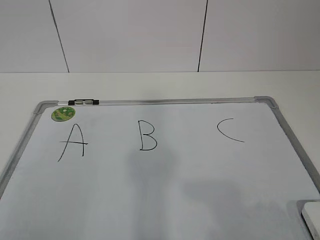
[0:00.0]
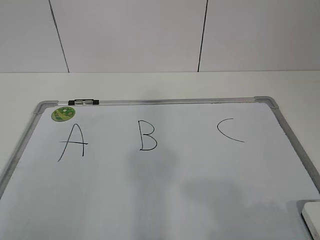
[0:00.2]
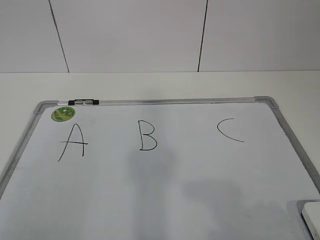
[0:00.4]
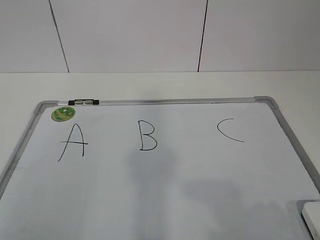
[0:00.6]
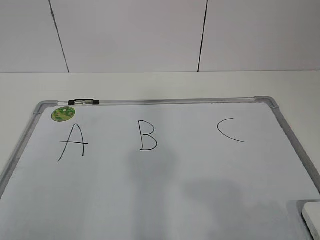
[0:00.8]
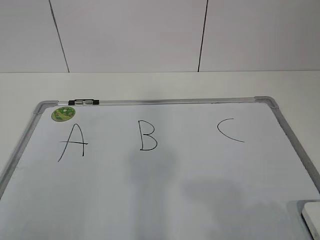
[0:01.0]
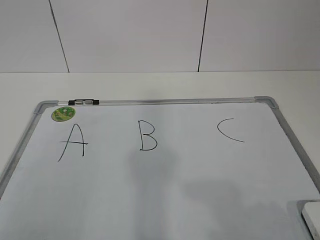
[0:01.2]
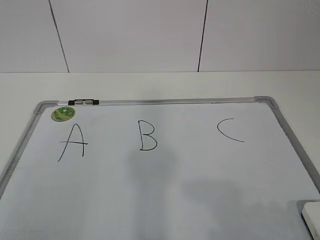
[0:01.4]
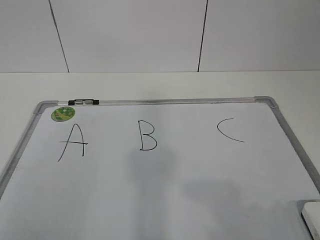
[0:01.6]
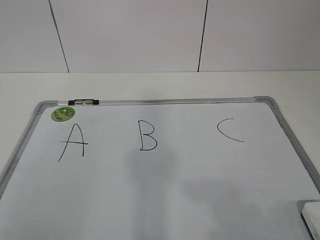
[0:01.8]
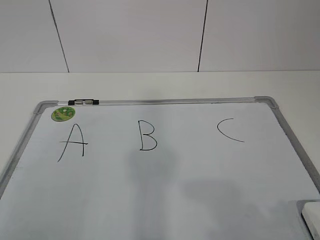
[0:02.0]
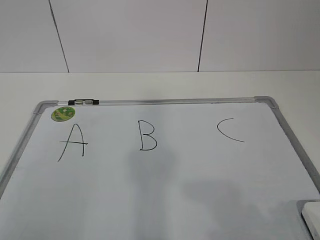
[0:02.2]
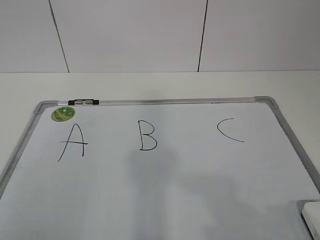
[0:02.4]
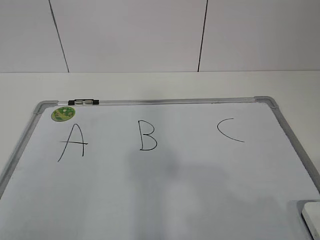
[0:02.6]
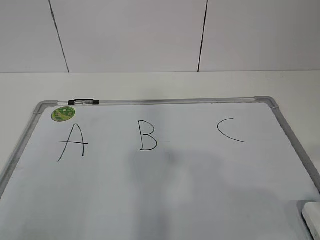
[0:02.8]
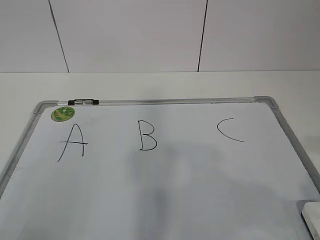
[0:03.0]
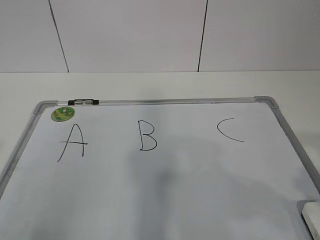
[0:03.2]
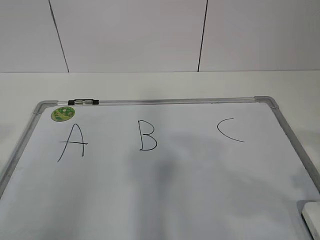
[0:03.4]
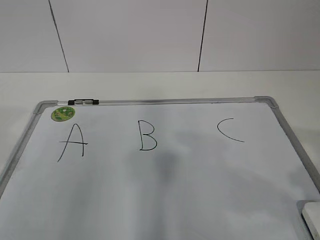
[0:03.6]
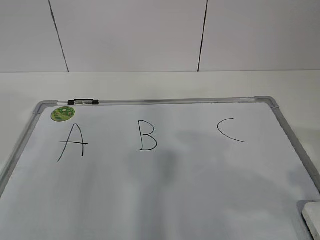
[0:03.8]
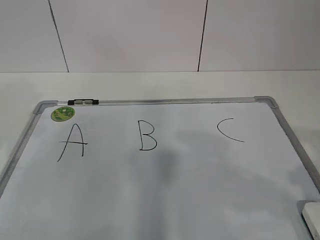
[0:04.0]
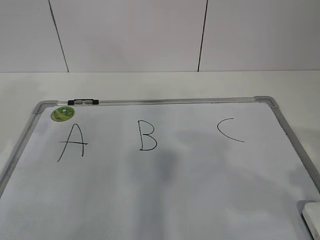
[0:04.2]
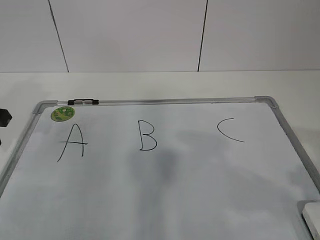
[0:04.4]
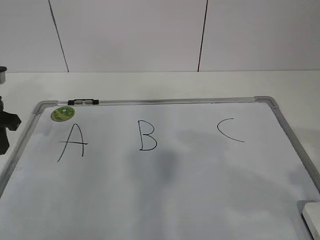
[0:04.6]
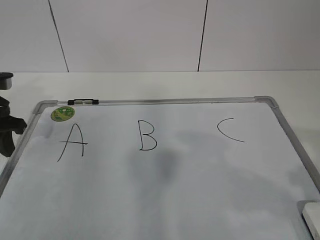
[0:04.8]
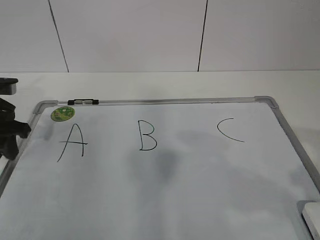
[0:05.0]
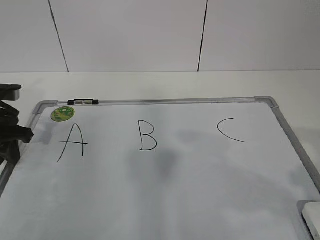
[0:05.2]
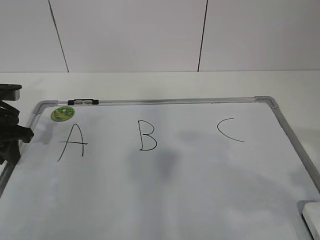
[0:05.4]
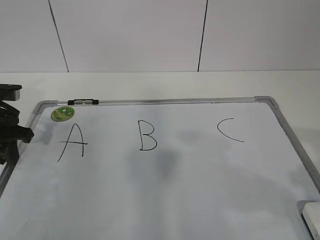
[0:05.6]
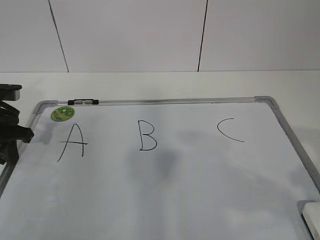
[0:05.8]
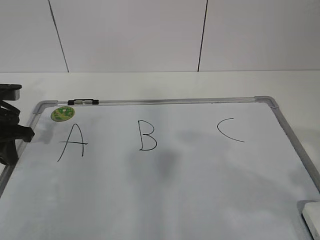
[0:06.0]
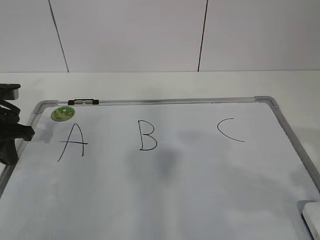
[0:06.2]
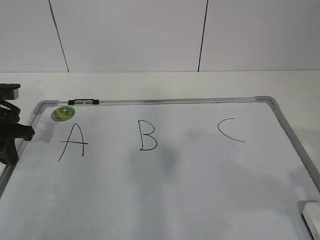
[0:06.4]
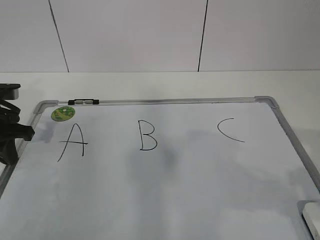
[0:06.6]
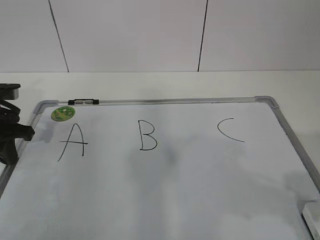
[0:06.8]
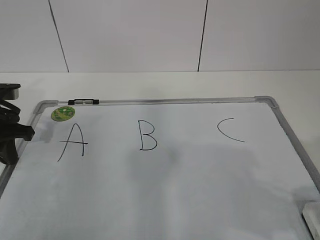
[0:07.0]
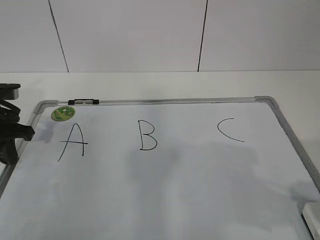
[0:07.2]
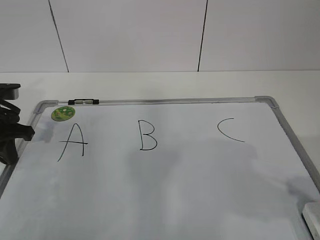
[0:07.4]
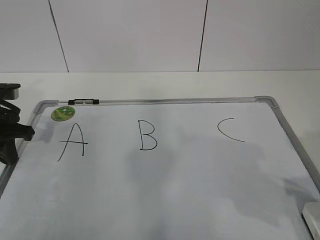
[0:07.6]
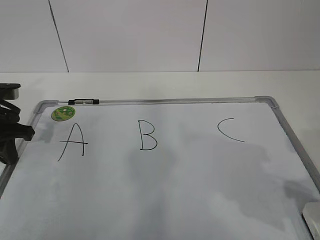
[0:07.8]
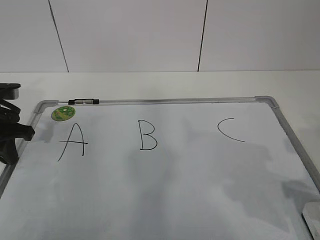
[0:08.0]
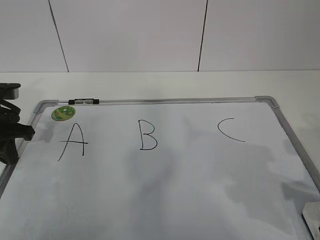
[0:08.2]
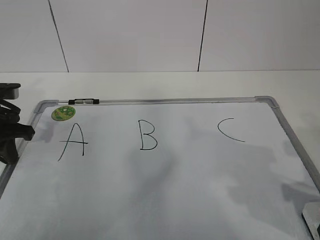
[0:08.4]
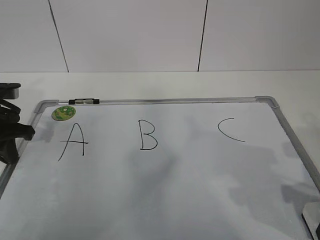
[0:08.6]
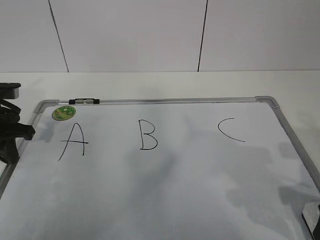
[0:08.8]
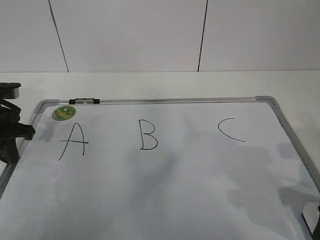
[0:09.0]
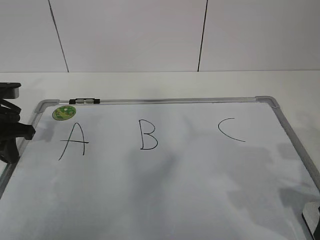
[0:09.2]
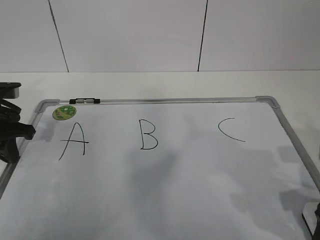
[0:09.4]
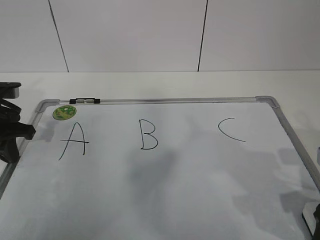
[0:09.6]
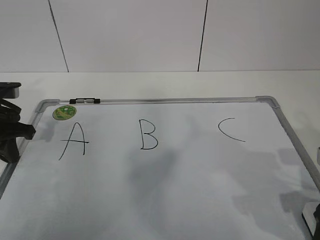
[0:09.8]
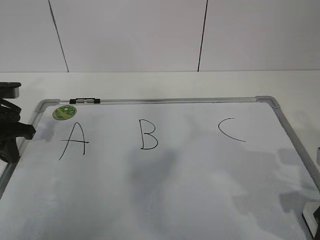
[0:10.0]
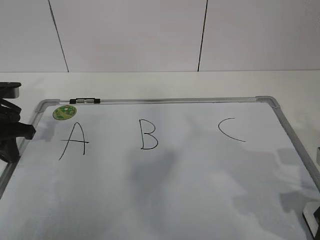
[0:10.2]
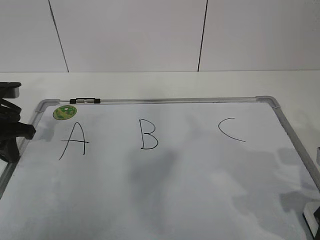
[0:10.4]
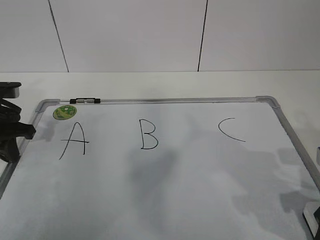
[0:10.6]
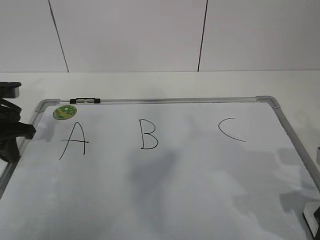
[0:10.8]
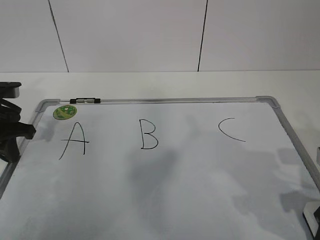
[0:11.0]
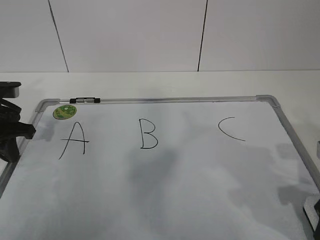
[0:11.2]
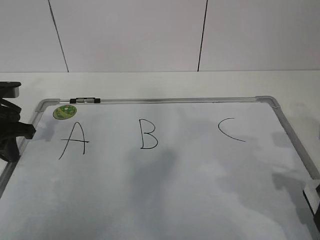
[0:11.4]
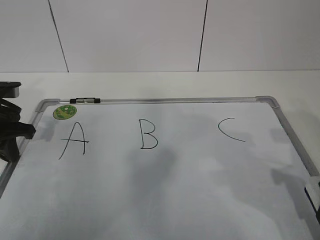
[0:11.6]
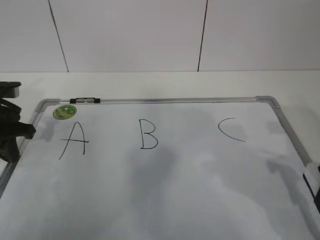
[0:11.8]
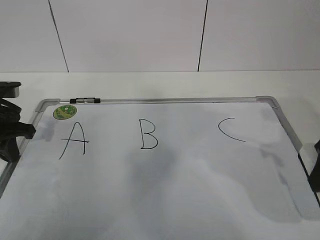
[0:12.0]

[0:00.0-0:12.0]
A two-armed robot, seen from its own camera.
Task of the whole recording: pick up the eraser on the blackboard and erase the letter "B".
Step, 0:00.0 to 0:04.8: Hold the drawing board steady with your left hand.
0:03.0 to 0:04.4: The left gripper shifts about 25 cm forward.
0:04.4 to 0:06.0: The left gripper is displaced downward by roughly 5 cm, and closes.
0:07.6 to 0:09.0: The right gripper shifts by about 5 cm.
0:09.0 to 0:10.4: Both grippers stay about where they are.
0:10.4 to 0:12.0: The right gripper heads upward, covering some 10 cm.

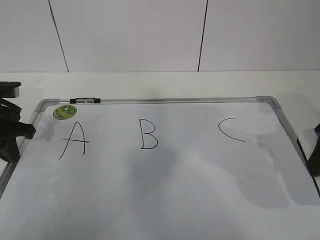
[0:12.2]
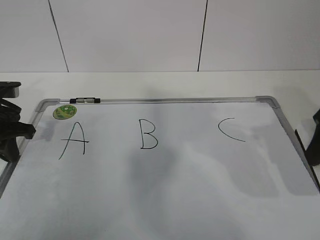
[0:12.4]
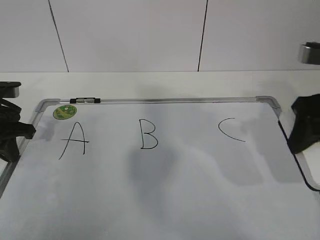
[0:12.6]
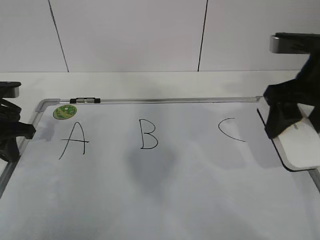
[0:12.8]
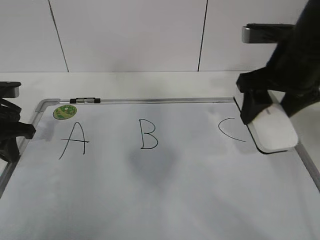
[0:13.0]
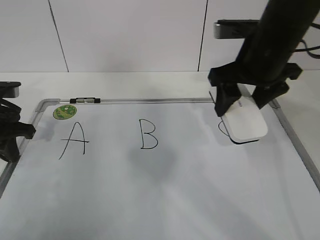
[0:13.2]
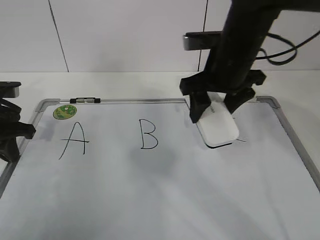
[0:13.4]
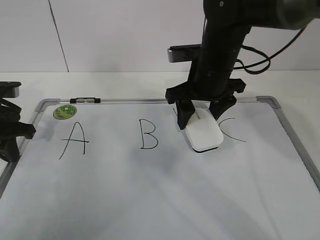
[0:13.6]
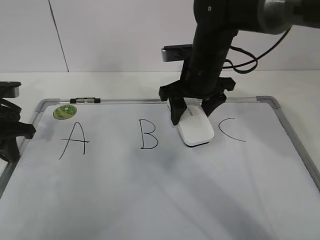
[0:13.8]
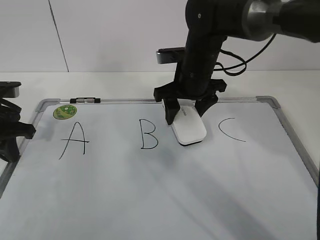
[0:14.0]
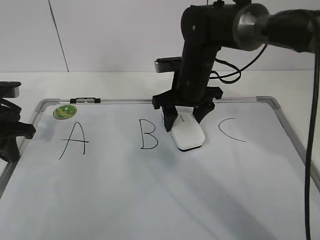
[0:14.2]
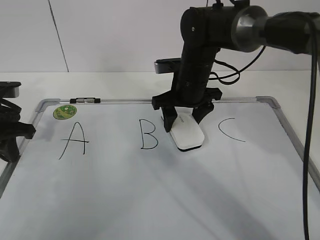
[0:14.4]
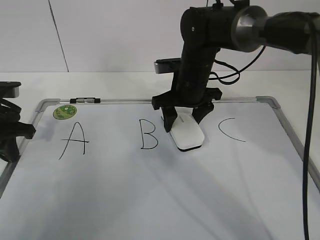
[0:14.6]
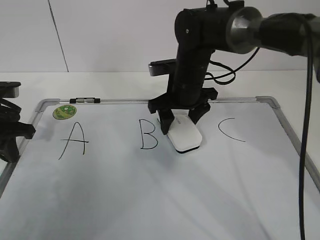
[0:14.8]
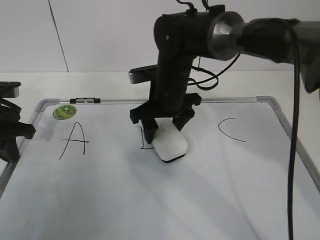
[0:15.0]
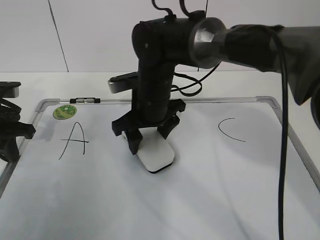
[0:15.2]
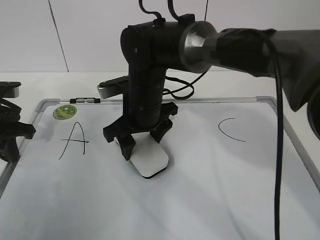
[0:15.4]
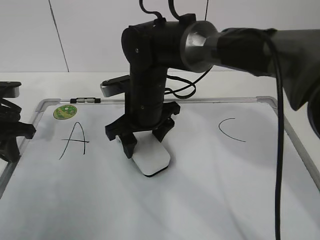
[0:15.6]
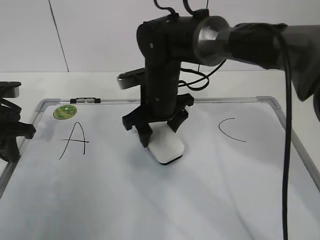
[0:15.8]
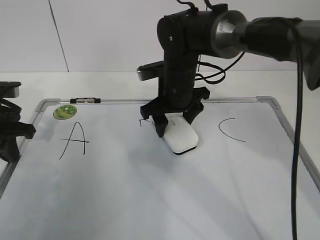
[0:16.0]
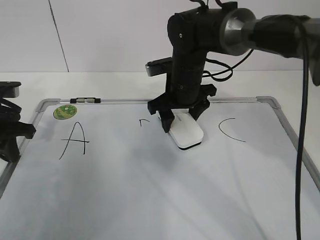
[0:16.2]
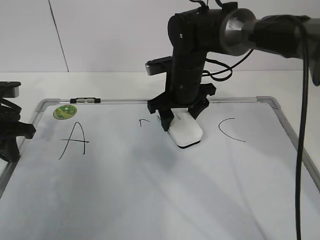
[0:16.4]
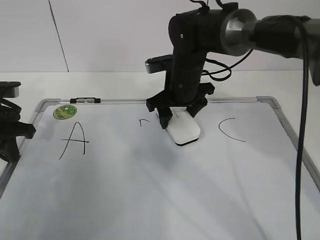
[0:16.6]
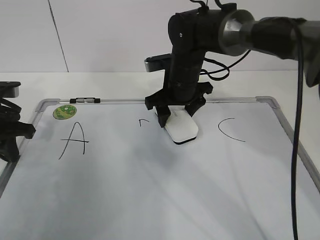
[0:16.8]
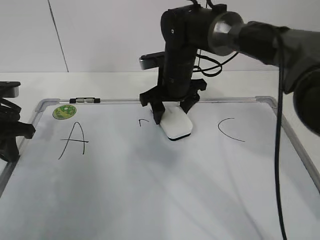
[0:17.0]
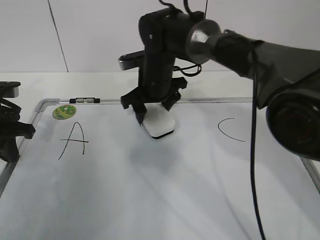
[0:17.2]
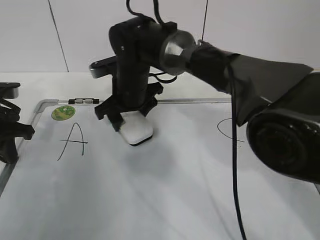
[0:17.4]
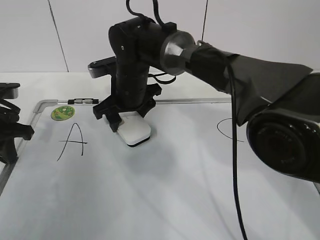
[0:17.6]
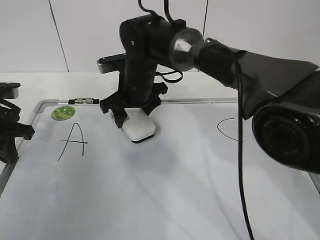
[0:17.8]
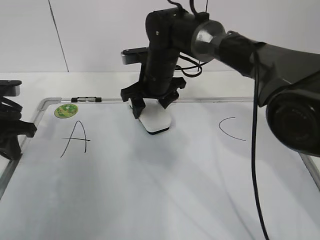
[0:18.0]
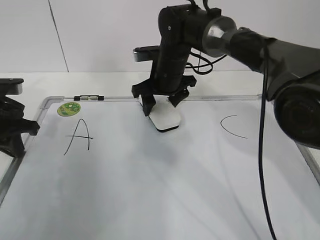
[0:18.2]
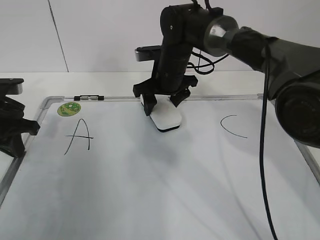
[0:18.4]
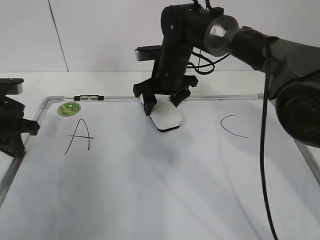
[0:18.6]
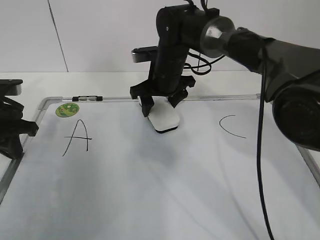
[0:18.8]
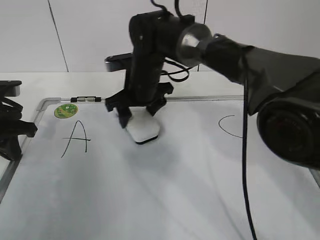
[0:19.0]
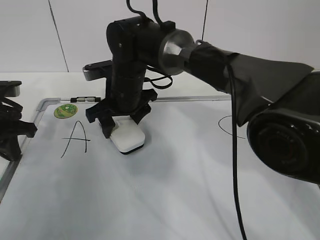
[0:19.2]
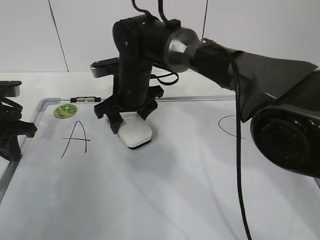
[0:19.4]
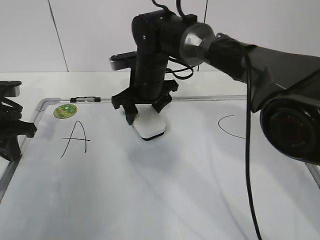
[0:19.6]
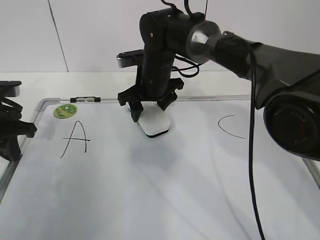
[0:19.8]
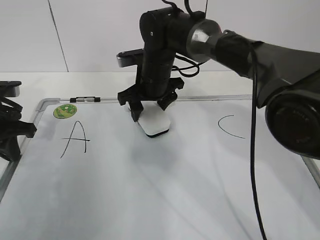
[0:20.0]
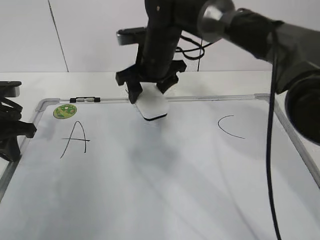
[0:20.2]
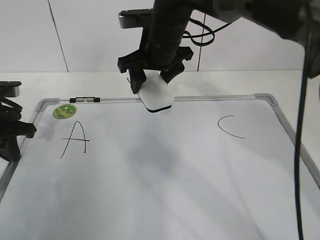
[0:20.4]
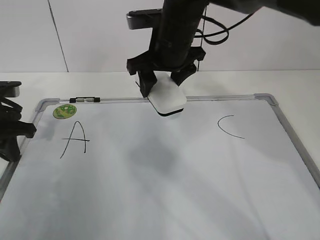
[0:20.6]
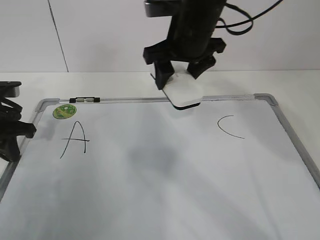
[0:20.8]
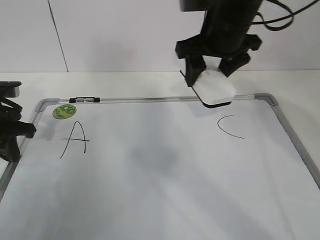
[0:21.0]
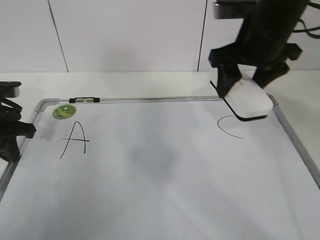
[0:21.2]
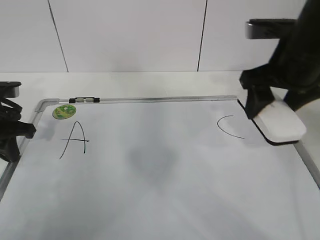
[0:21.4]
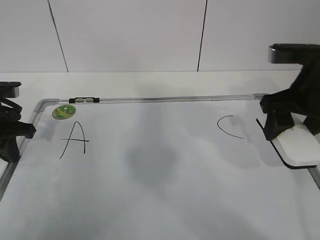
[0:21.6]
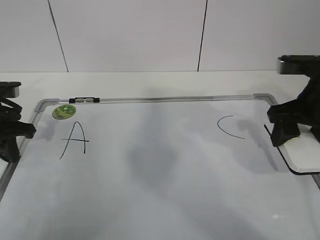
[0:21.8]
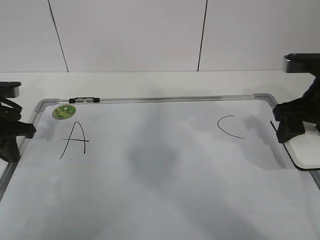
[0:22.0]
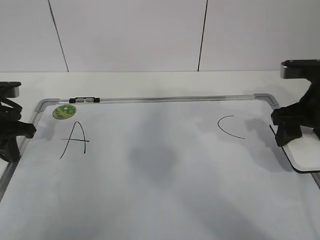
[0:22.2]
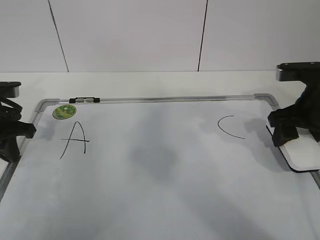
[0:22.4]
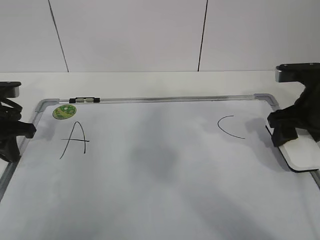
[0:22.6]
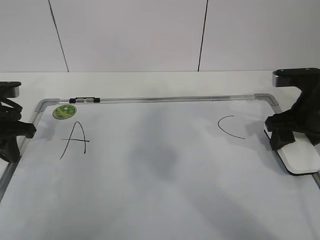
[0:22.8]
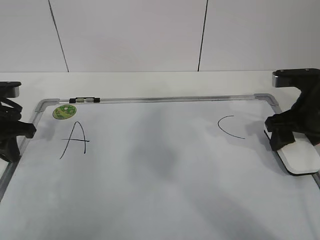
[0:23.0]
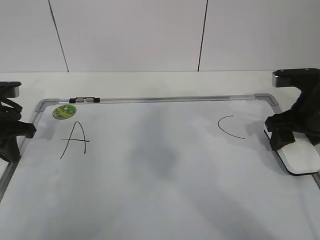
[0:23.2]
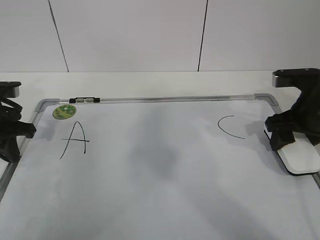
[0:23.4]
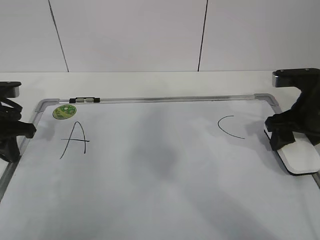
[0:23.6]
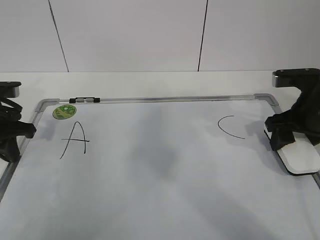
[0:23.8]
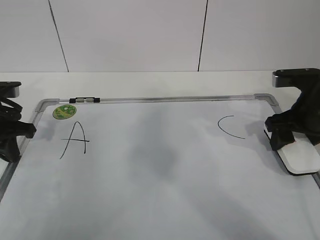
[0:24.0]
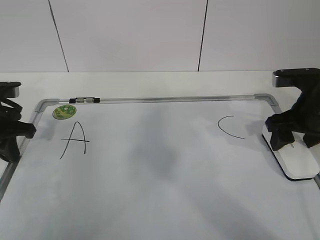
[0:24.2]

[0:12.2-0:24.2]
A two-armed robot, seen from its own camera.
Task of the whole recording: pick up the eraser on the blackboard and erase the letter "B".
Step, 0:12.2 to 0:16.4: Erase the letter B with your right hand.
Step, 0:16.6 to 0:20.0: Put down the eraser with your right hand.
0:12.2 to 0:13.8: The right gripper shifts roughly 25 cm to the left and forward.
0:13.8 to 0:15.2: The right gripper goes roughly 10 cm to the left.
0:15.2 to 0:16.6: The right gripper moves to the right and forward, some 10 cm.
0:16.6 to 0:18.2: The right gripper moves some 10 cm to the left and comes back.
0:19.8 to 0:21.2: The right gripper moves to the right, upward and backward, roughly 20 cm.
0:21.2 to 0:22.6: The right gripper is displaced downward and to the right by about 15 cm.
0:22.6 to 0:24.2: Both grippers stay about where they are.
